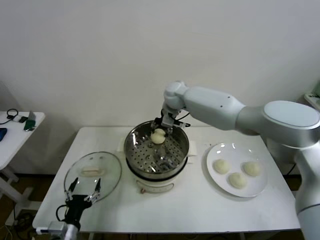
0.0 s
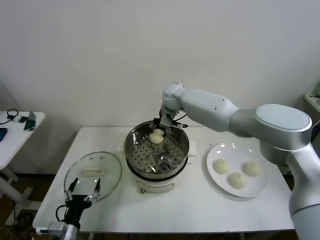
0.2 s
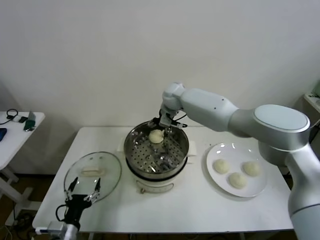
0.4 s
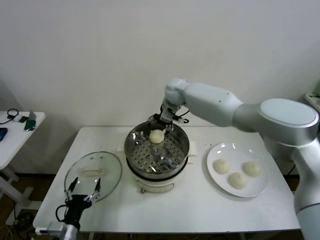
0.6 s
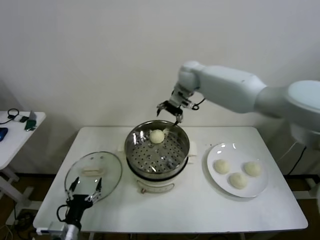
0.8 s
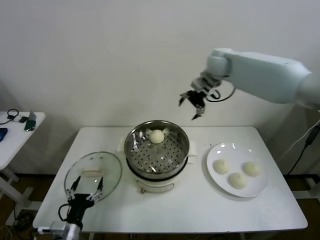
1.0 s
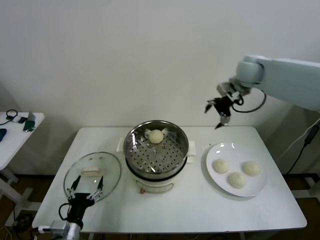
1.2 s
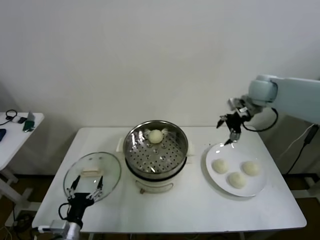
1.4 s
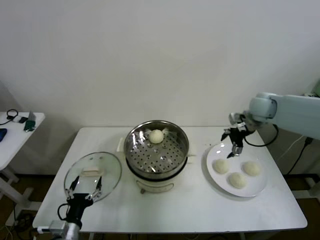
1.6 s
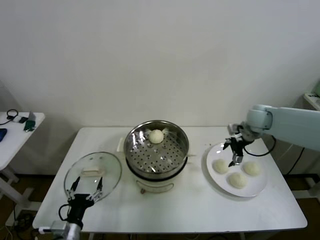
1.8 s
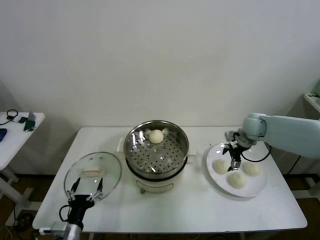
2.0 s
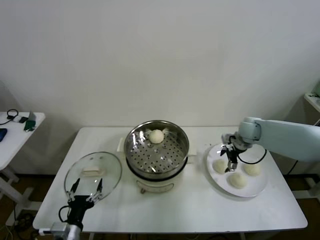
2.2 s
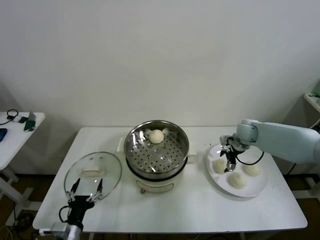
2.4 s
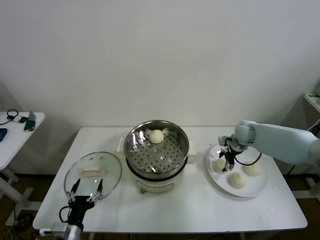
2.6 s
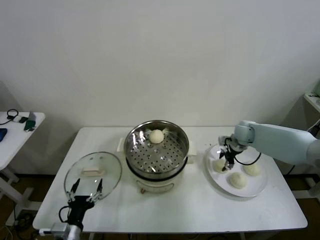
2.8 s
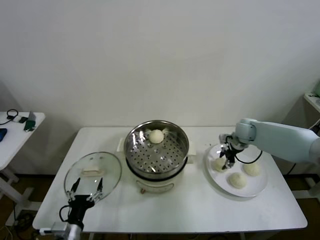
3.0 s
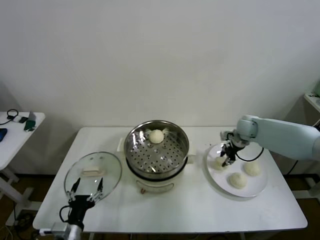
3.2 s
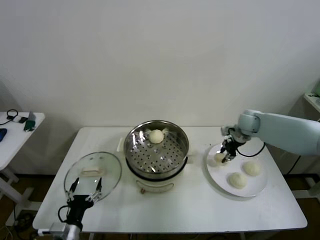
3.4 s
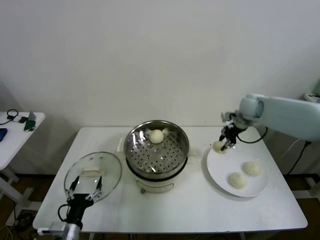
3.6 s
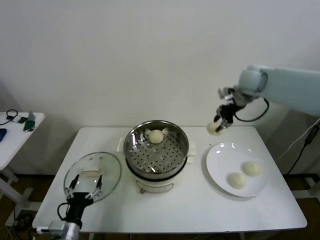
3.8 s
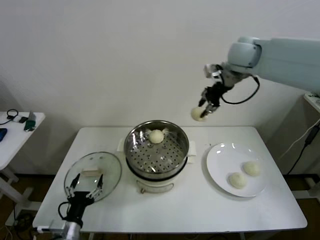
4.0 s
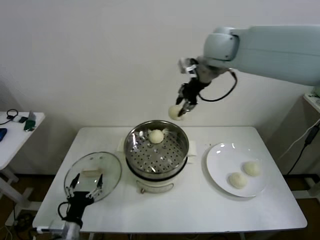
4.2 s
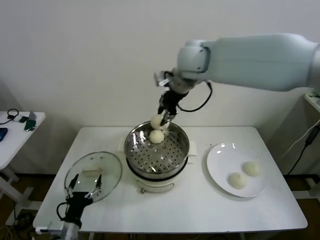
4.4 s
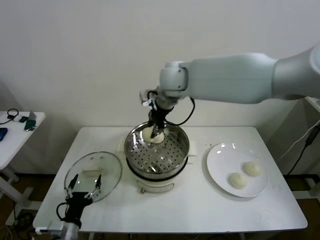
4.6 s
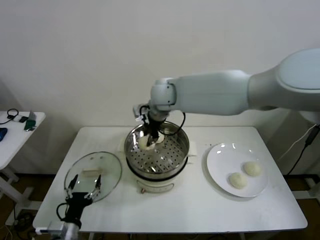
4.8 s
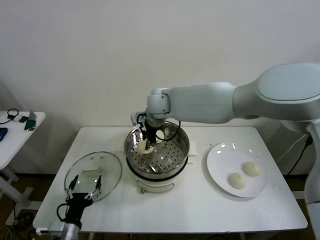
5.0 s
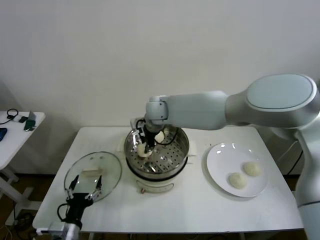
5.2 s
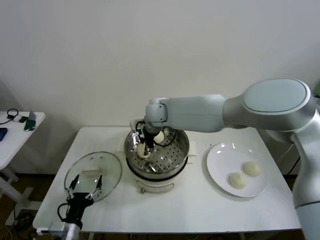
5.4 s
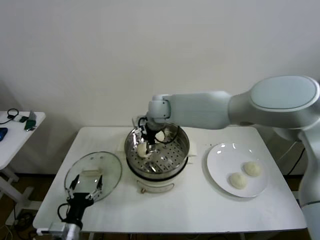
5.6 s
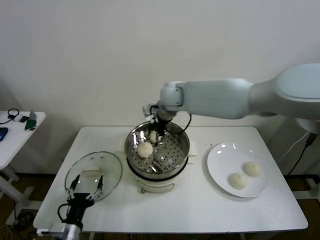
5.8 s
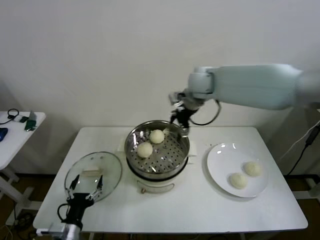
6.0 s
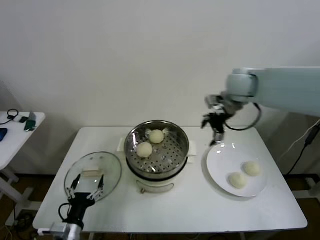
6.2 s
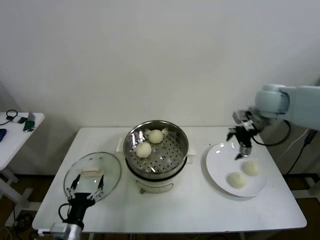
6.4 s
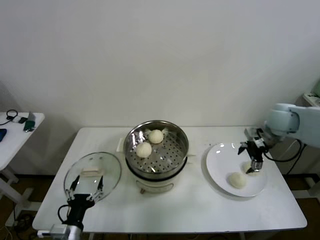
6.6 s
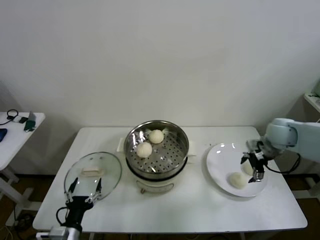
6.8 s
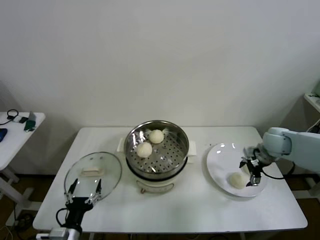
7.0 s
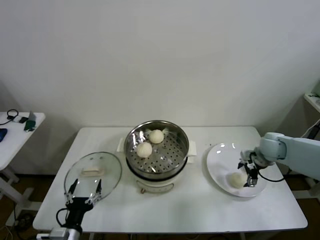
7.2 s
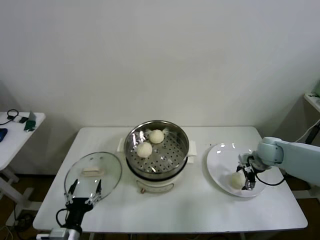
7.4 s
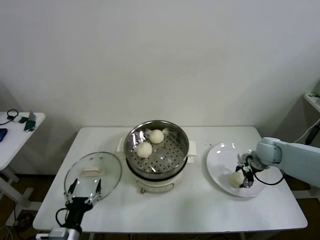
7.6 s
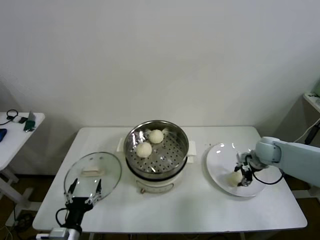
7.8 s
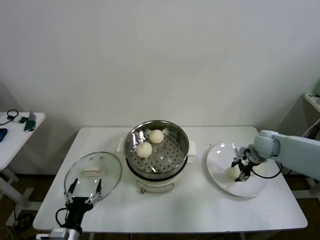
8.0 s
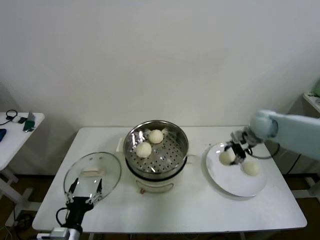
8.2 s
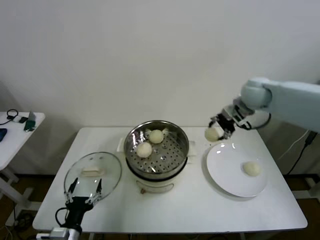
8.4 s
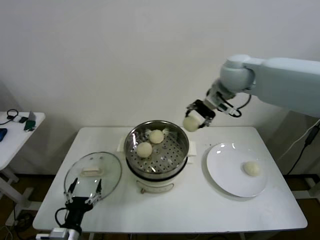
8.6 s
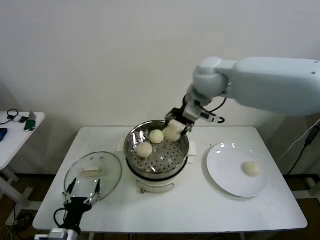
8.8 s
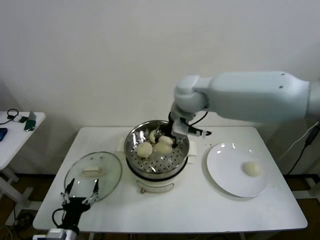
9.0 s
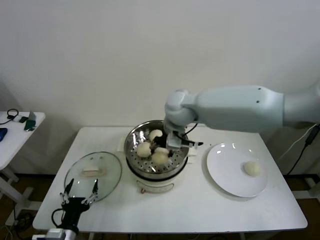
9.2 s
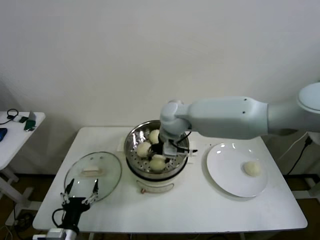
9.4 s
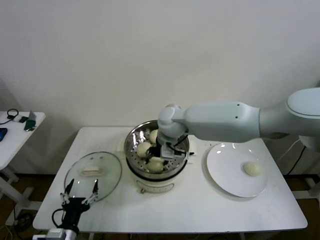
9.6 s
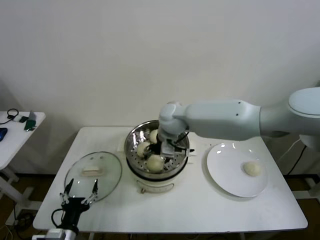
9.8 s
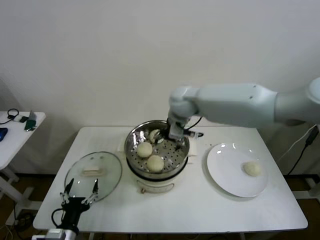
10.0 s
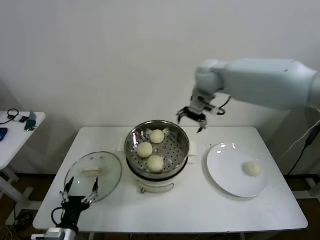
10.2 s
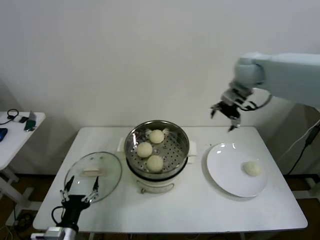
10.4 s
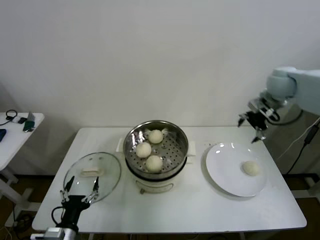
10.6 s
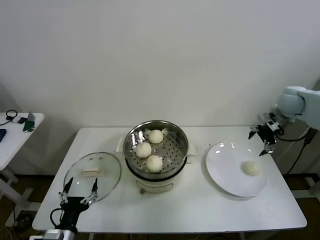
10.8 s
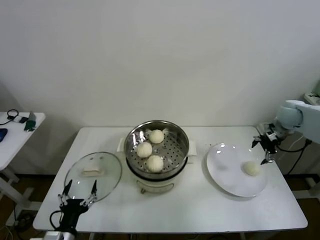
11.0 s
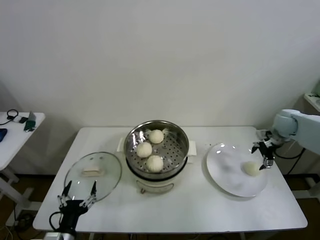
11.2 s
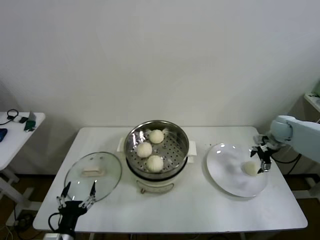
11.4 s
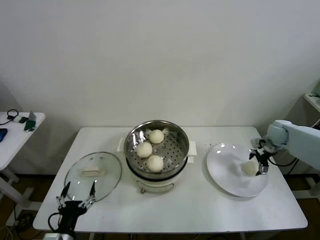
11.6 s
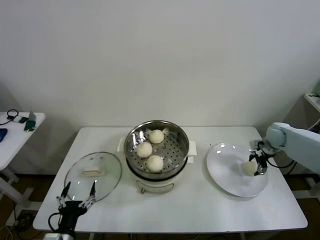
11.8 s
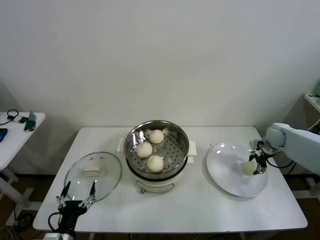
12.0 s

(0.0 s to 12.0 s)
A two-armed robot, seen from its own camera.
Step, 0.6 s - 2.8 s: Grasp the baozi in the plate with right gripper.
Step, 3.0 s - 5.4 s: Place the baozi on the steamer with right gripper.
Step, 5.6 s - 7.6 s: Grasp the baozi in the plate with right gripper.
Step, 7.8 s - 9.6 s: Place the baozi on the steamer with right gripper.
Step, 10.0 s - 12.0 s: Grasp the baozi in the plate with right gripper.
0.0 s - 1.6 s: The right gripper shifts roughly 30 cm to the right, and opens its fingers.
1.6 s - 3.0 s: The right gripper is displaced downward by about 10 cm, and closes.
3.0 s - 4.4 s: The right gripper heads upward and to the left, covering roughly 40 cm.
4.4 s - 6.0 s: The right gripper heads to the right and downward, covering approximately 10 cm, and opens.
6.0 s - 7.6 s: The right gripper heads downward and to the right, covering approximately 35 cm.
7.6 s - 9.0 s: The right gripper goes about 40 cm to the left and upward.
9.0 s - 10.4 s: The right gripper shifts some 20 cm to the right, and opens.
10.4 s - 12.0 s: The right gripper is displaced downward and to the right by about 30 cm.

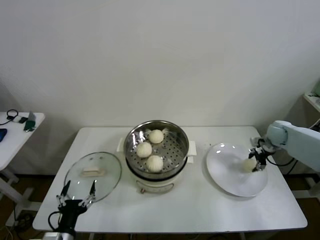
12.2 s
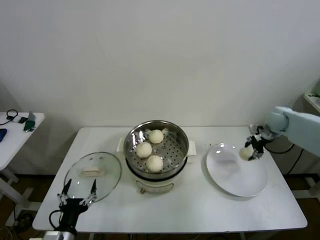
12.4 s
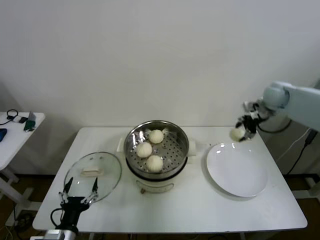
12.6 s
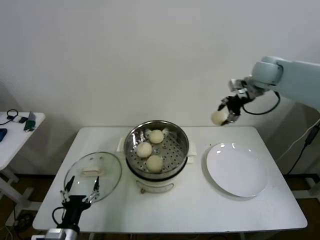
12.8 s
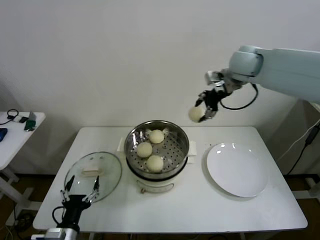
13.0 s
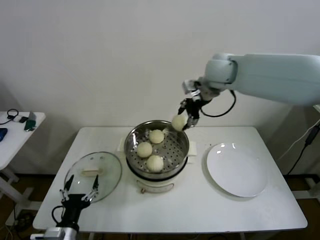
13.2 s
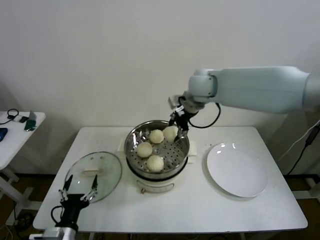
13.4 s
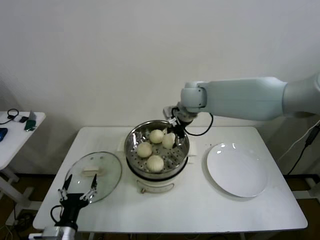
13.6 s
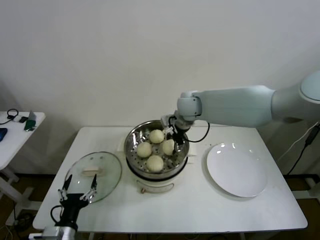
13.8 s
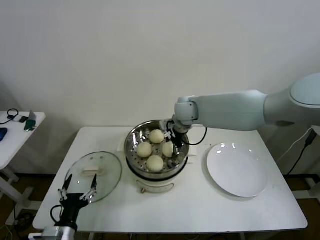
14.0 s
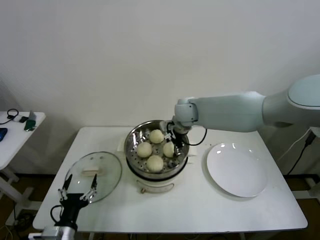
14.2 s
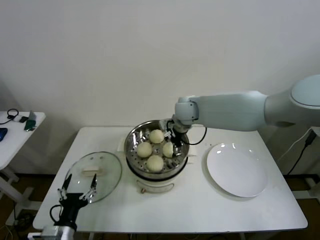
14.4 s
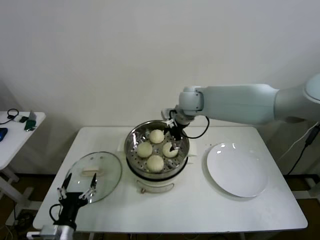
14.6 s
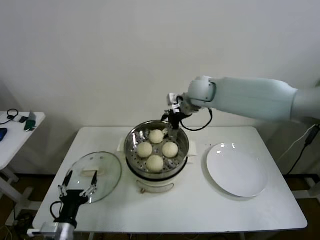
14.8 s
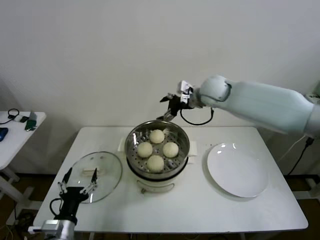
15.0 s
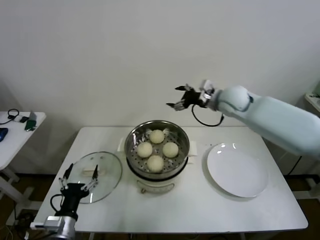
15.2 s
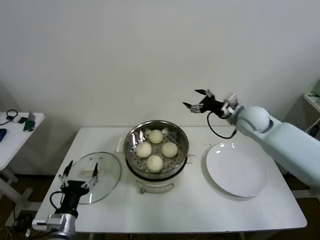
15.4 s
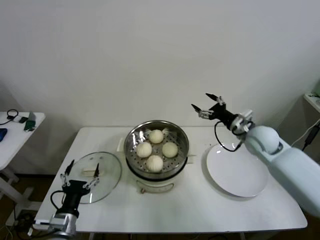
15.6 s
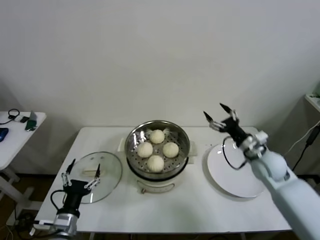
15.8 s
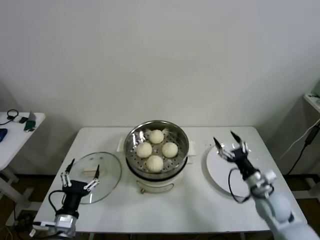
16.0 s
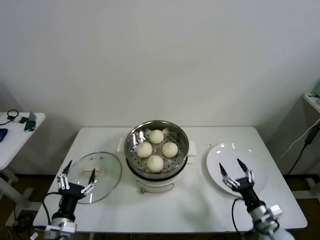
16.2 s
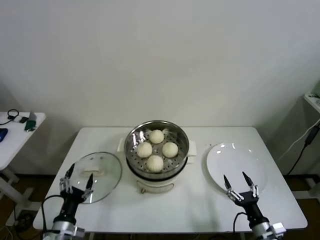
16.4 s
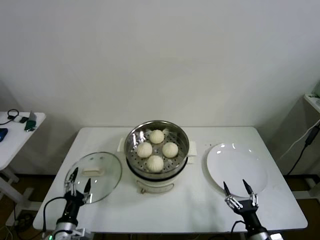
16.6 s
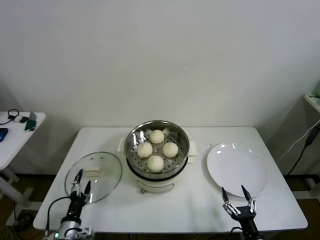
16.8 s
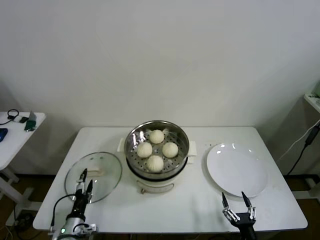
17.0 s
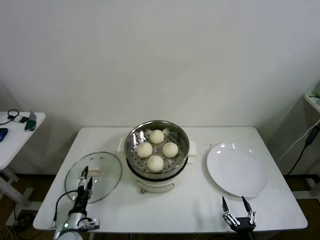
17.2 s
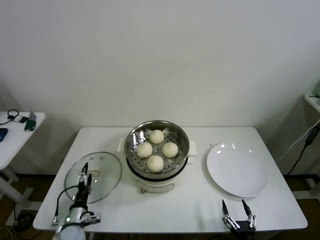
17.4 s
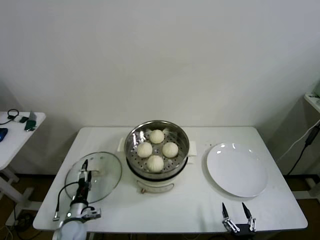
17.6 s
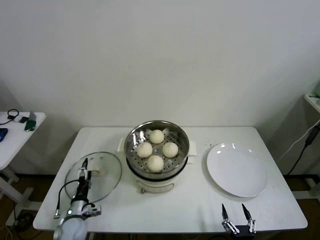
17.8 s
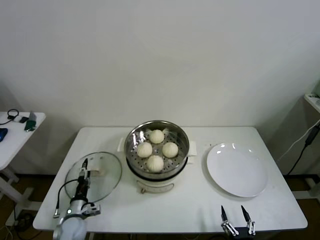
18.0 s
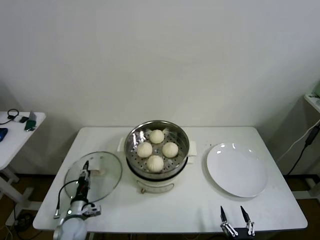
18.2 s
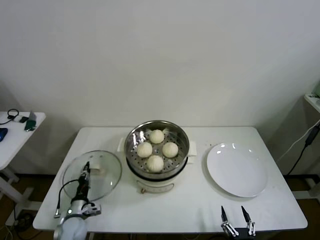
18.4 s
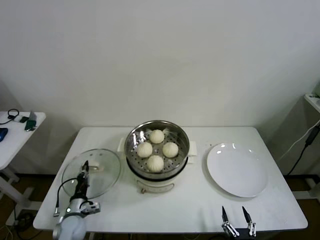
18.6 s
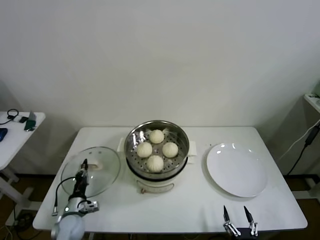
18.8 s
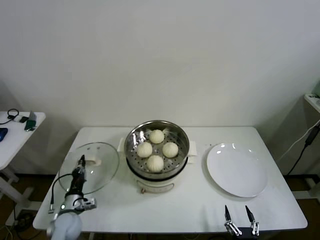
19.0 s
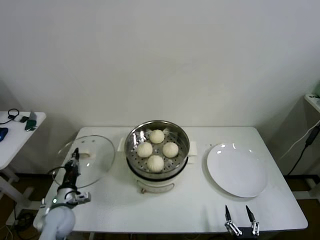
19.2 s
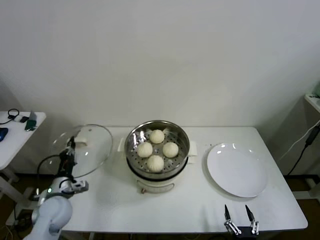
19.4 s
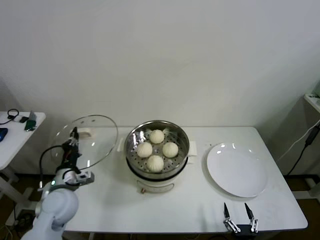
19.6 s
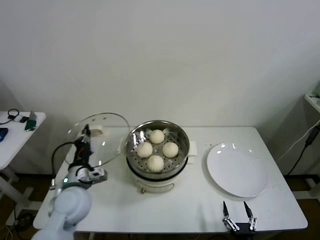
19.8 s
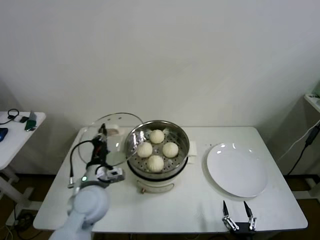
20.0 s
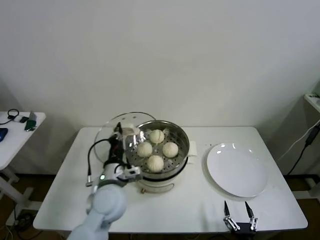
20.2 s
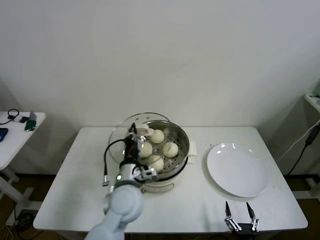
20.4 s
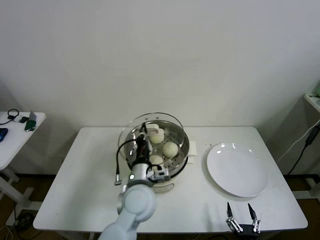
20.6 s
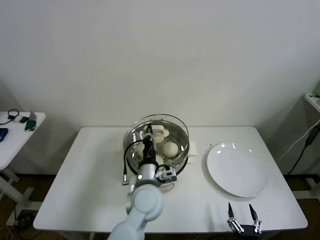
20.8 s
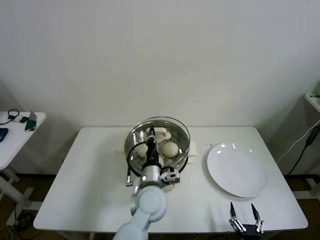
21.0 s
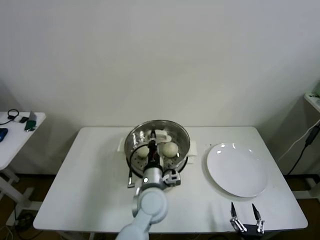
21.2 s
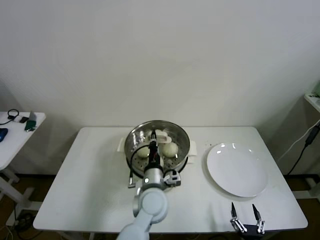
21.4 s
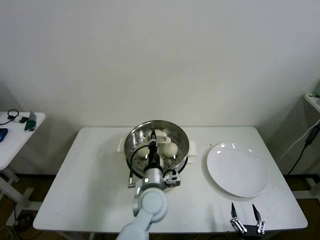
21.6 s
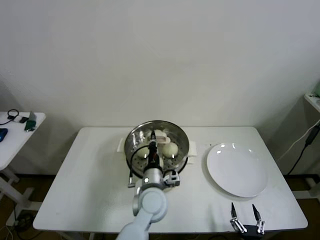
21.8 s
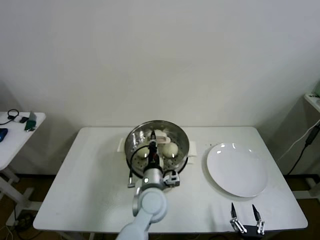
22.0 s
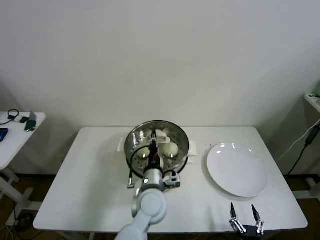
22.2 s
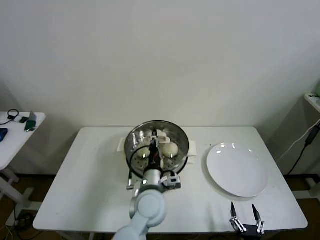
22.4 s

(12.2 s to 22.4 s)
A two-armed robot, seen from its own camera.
Step, 12.2 s - 14.2 s: Place the baozi on the steamer with right gripper.
Step, 14.4 s - 18.4 s: Grasp the pot lid with left gripper.
Step, 18.8 s - 22.2 s: Place the pot lid on the steamer with left gripper.
12.2 s - 13.6 s: The right gripper shifts some 40 cm to the left and upward.
13.6 s - 15.2 s: The right gripper moves to the right, about 15 cm, and opens.
15.2 s - 16.6 s: The left gripper is displaced downward by about 5 cm, while the right gripper heads backward and downward, covering about 50 cm.
16.6 s - 18.0 s: The left gripper shifts about 15 cm forward and downward, while the right gripper shifts about 5 cm backward.
18.0 s - 19.4 s: The left gripper travels upward by about 15 cm, and closes up.
19.4 s - 21.0 s: The left gripper heads to the right, covering some 30 cm.
21.0 s - 22.4 s: The left gripper opens up.
